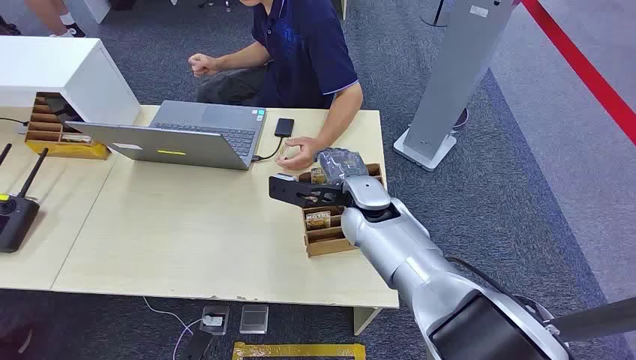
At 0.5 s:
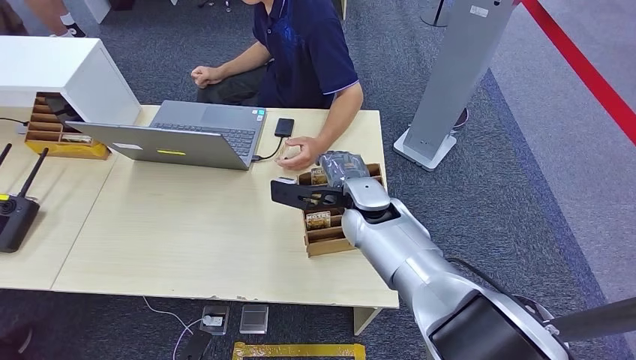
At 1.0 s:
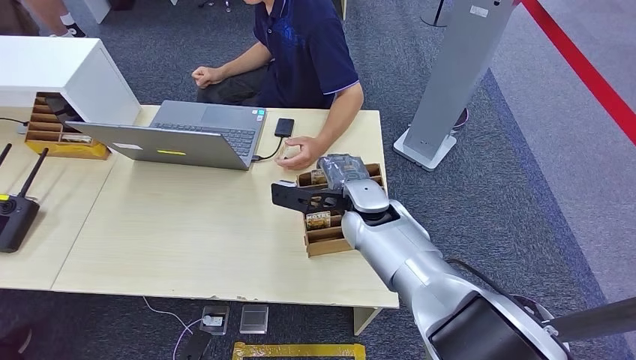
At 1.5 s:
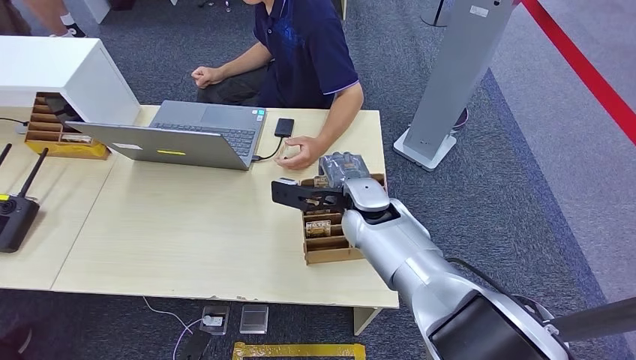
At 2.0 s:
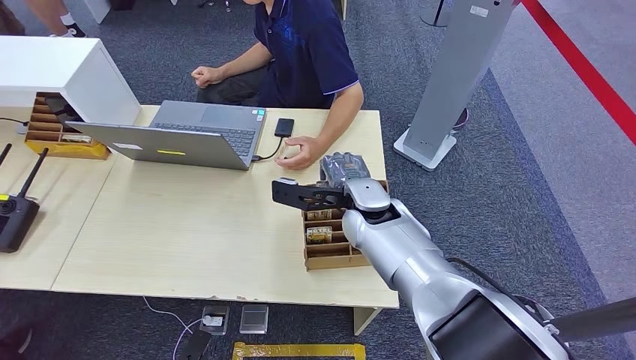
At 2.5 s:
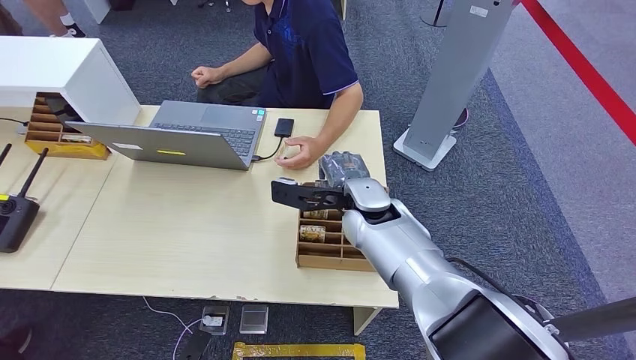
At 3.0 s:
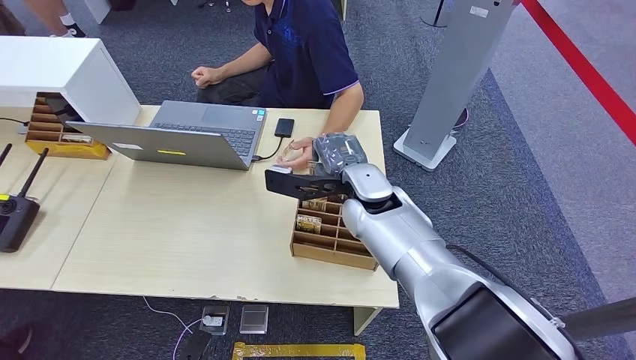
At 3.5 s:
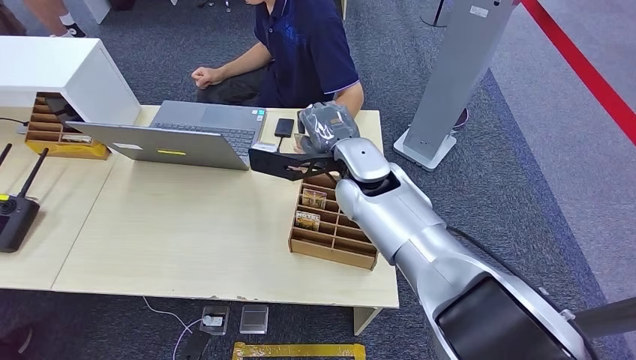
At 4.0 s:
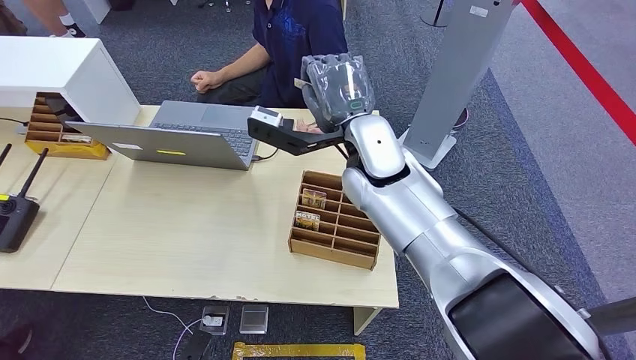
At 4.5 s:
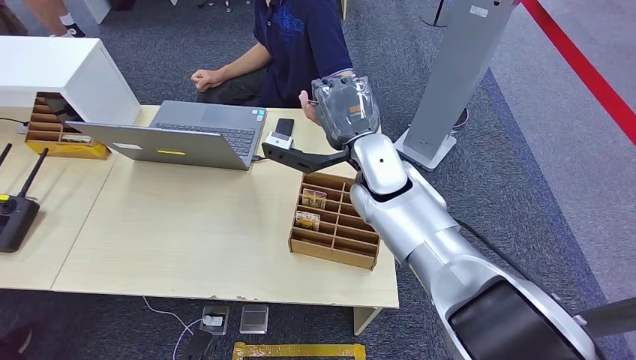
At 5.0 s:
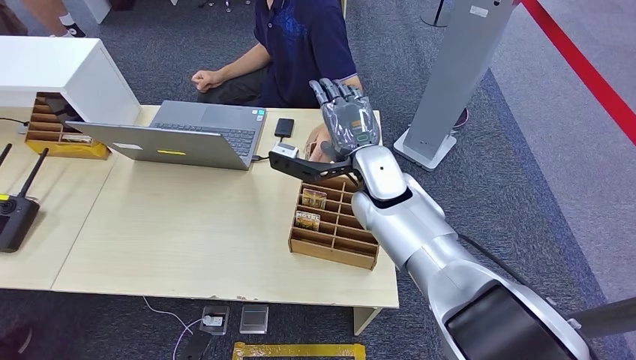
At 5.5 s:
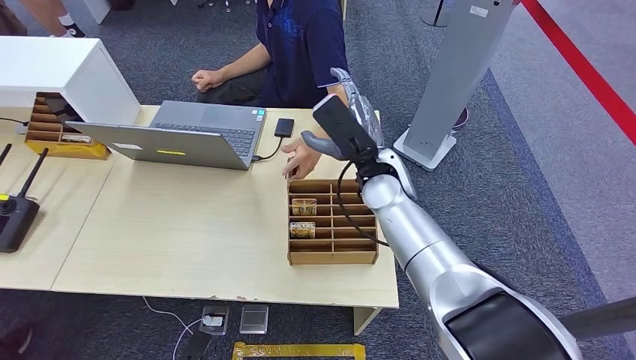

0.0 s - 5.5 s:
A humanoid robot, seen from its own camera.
Step, 0.0 s - 3.5 s: Pick up the room card from the card holder.
Step, 4.5 s - 5.0 s: Hand the room card to the target.
2.0 s - 3.5 s: The right hand is displaced upward by some 5 cm.

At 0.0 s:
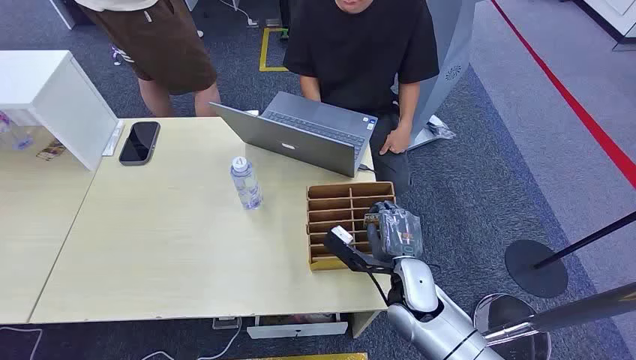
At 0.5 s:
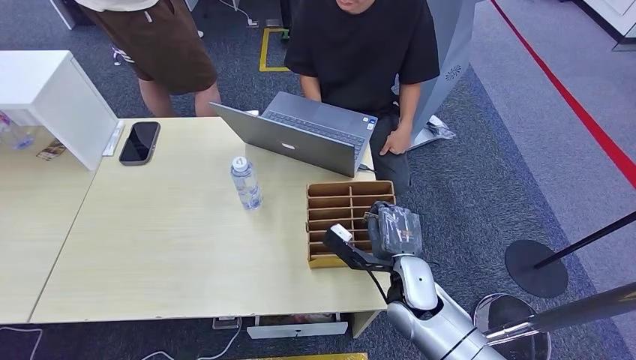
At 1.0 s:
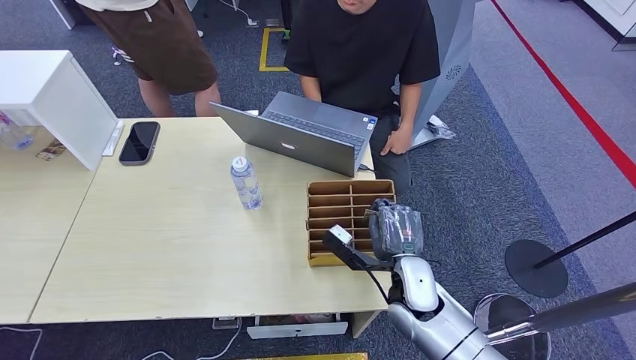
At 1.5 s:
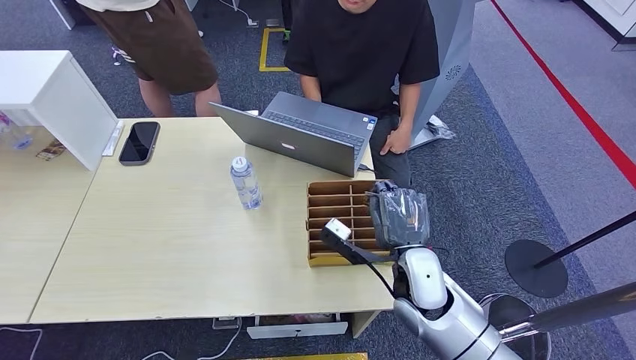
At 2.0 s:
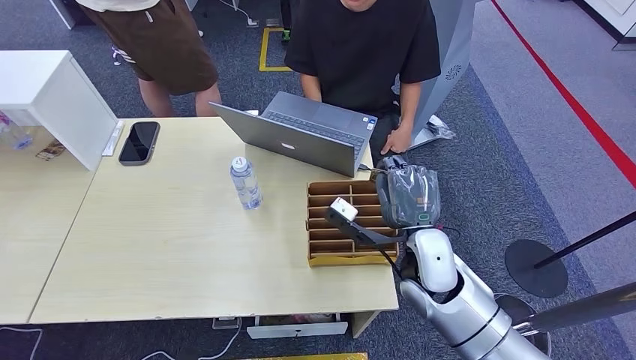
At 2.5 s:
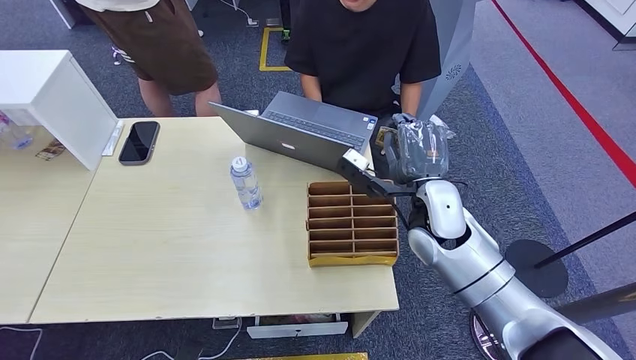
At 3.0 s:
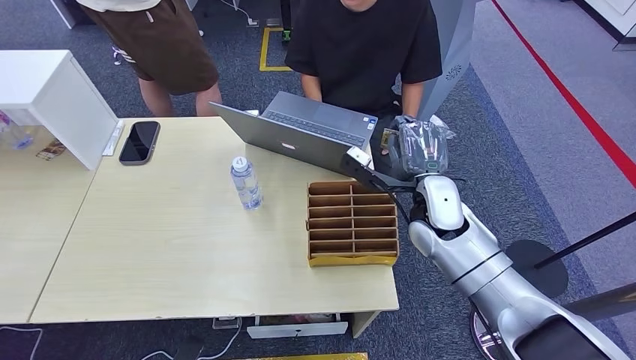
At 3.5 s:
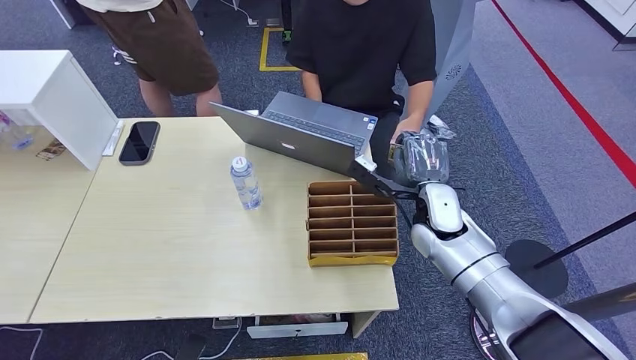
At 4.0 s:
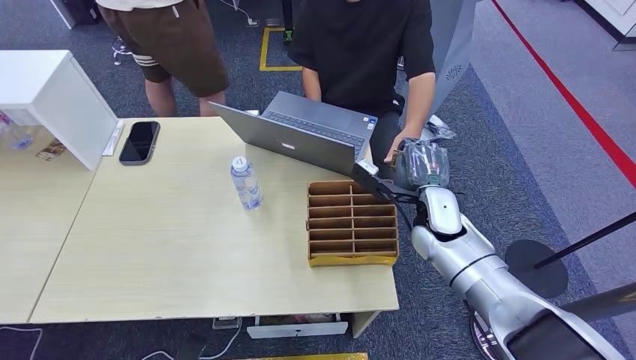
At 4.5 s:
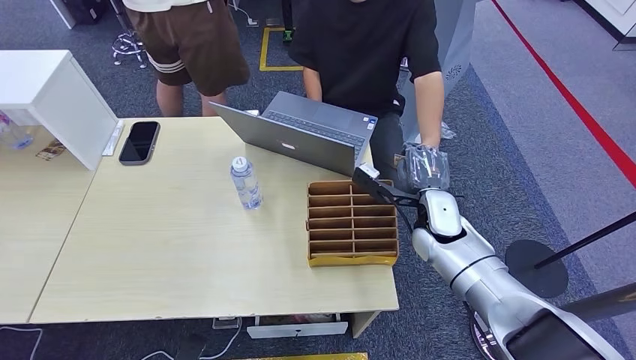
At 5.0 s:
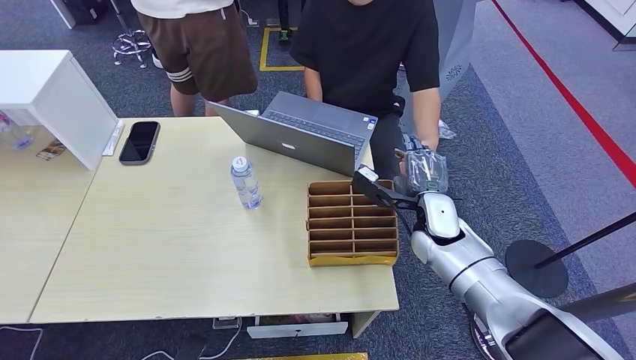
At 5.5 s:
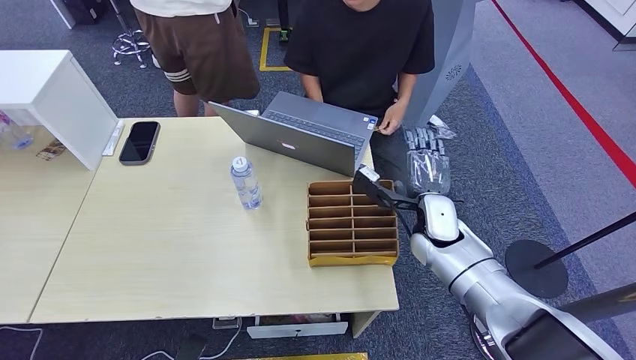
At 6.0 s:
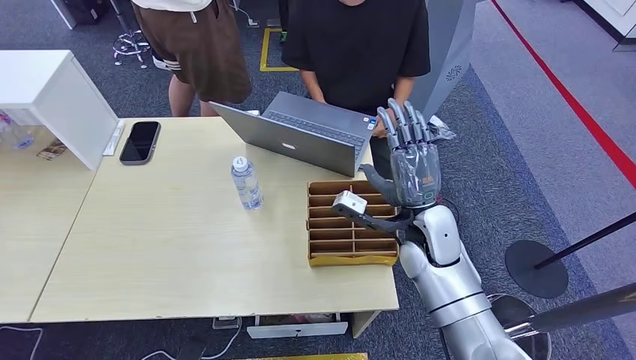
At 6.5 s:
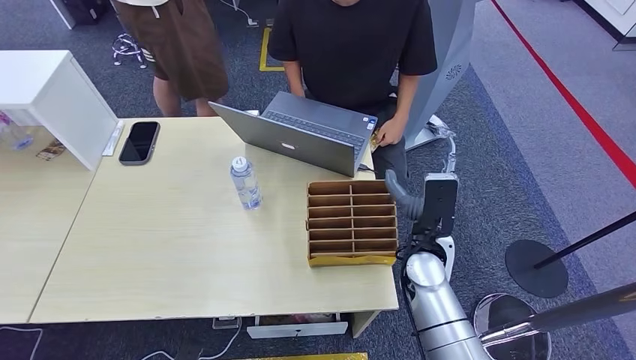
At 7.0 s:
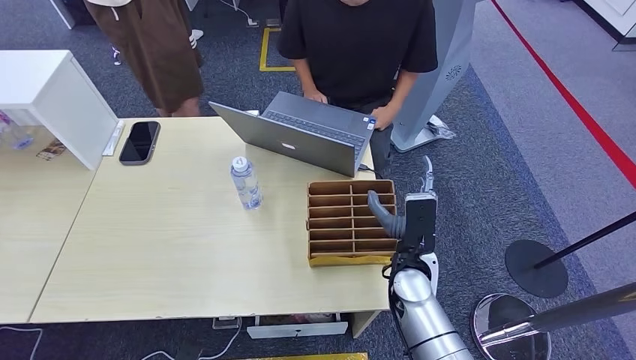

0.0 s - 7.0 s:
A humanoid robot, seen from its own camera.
Step, 0.0 s - 1.5 s: Pick up the room card from the card holder.
Step, 2.0 s - 7.0 s: Hand the room card to the target.
2.0 s - 3.5 s: The right hand heads forward, covering roughly 10 cm.
3.5 s - 5.0 s: The hands stay close to where they were, moving slightly.
5.0 s - 7.0 s: The right hand travels backward and to the left by some 10 cm.

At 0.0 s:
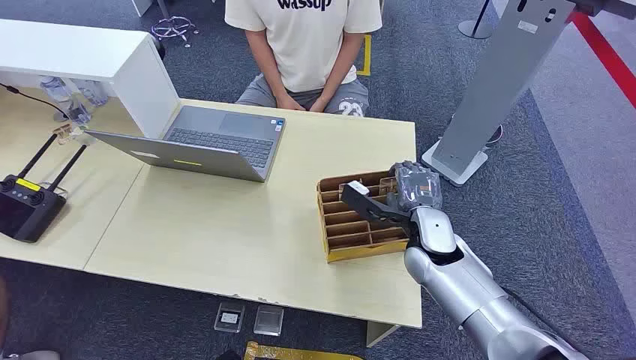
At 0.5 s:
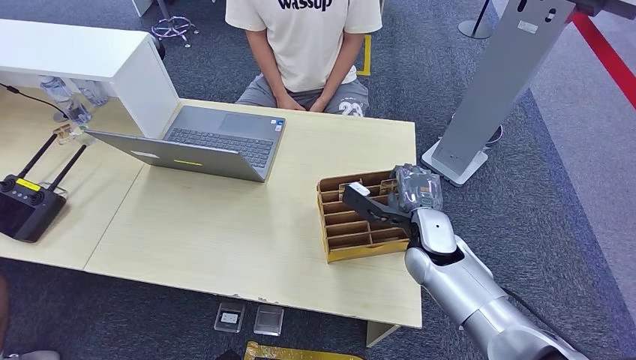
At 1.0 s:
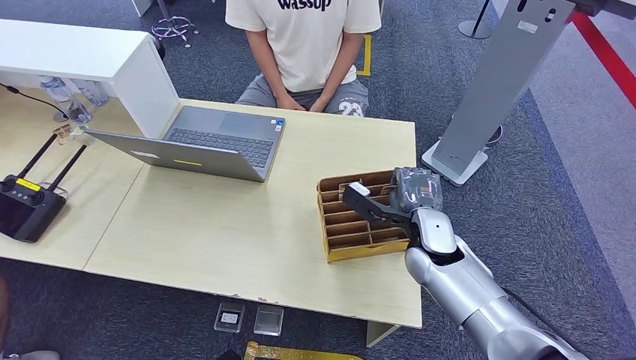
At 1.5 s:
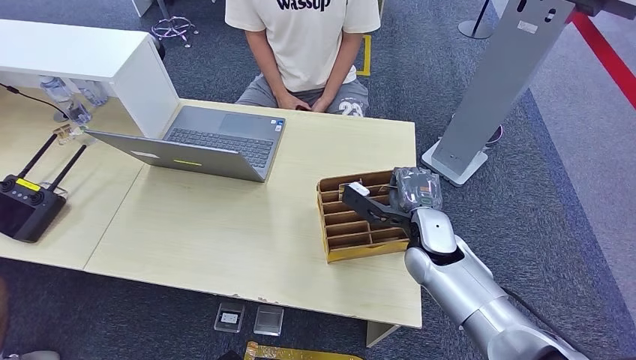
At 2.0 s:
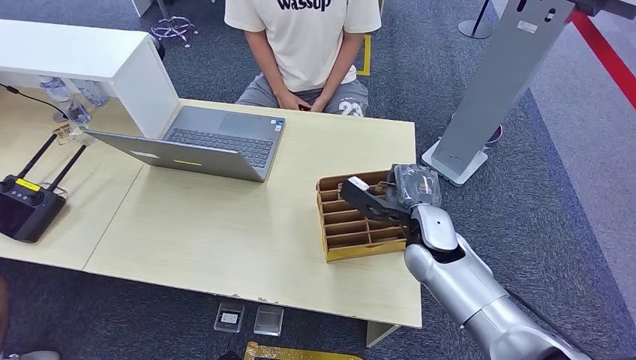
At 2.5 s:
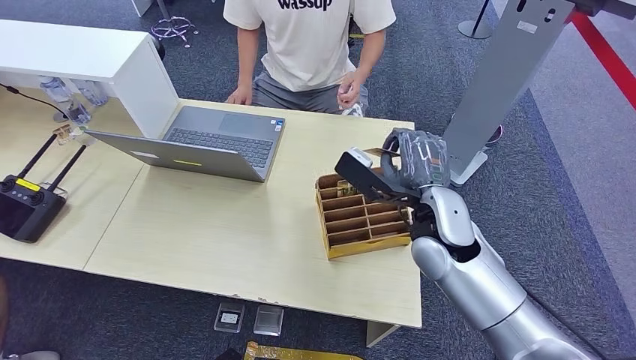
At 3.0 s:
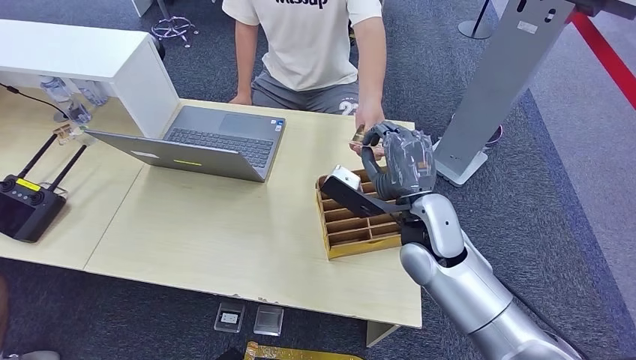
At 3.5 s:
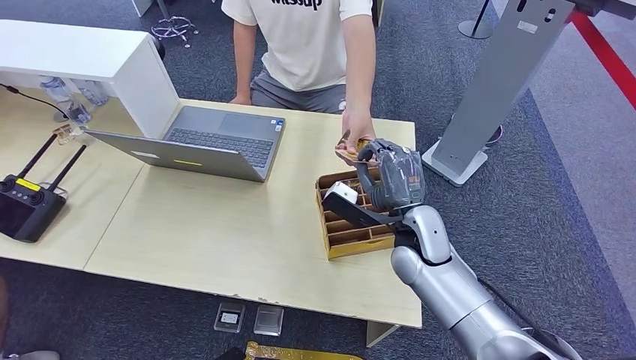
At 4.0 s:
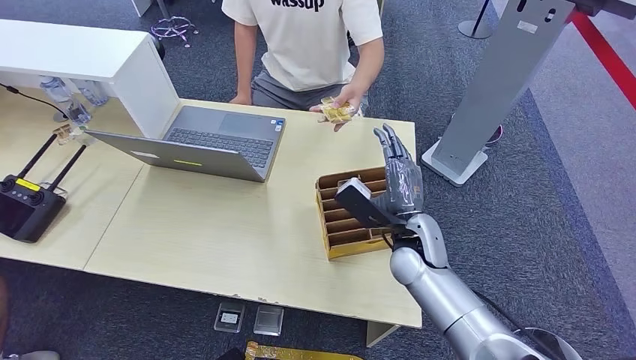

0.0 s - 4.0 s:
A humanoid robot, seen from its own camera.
Step, 0.0 s - 2.0 s: Pick up the room card from the card holder.
Step, 3.0 s - 4.0 s: Hand the room card to the target.
2.0 s - 4.0 s: The right hand moves about 5 cm upward and comes back.
